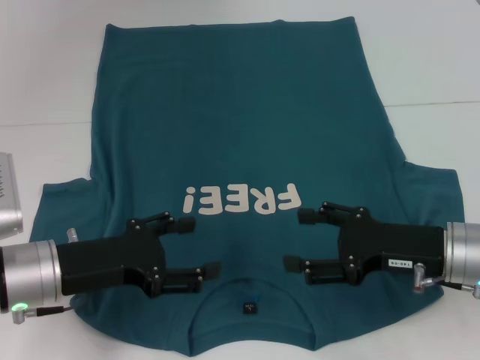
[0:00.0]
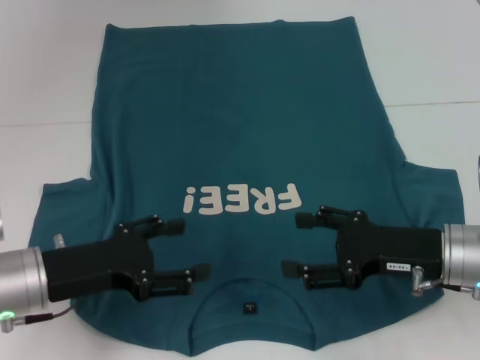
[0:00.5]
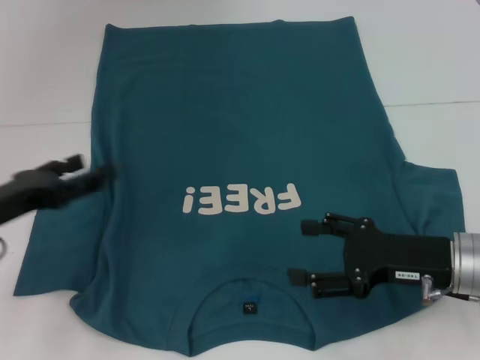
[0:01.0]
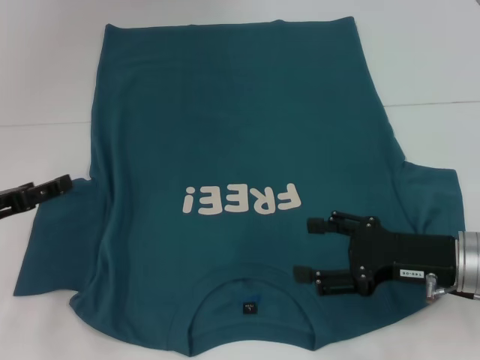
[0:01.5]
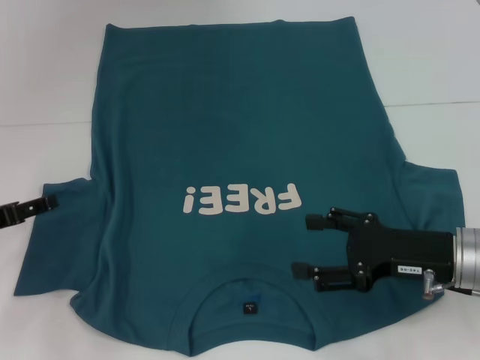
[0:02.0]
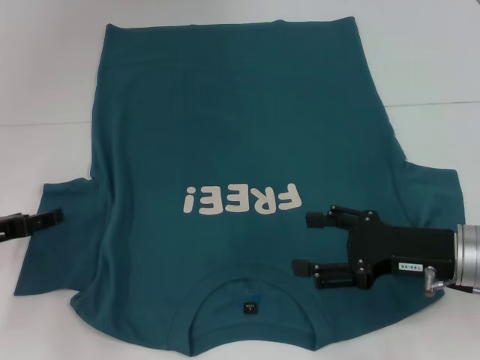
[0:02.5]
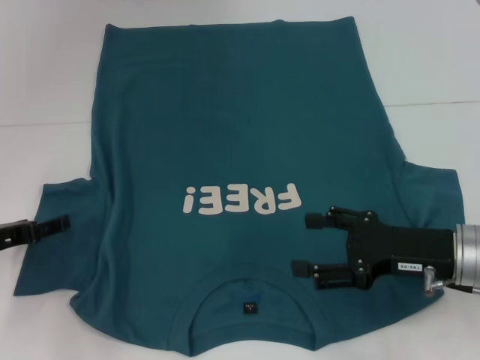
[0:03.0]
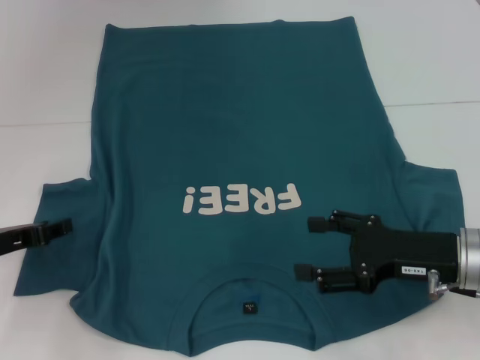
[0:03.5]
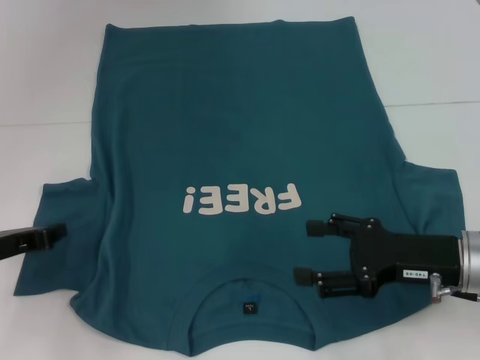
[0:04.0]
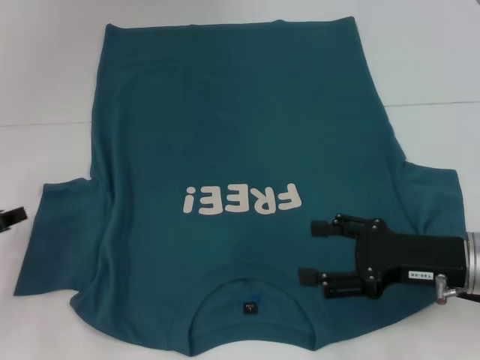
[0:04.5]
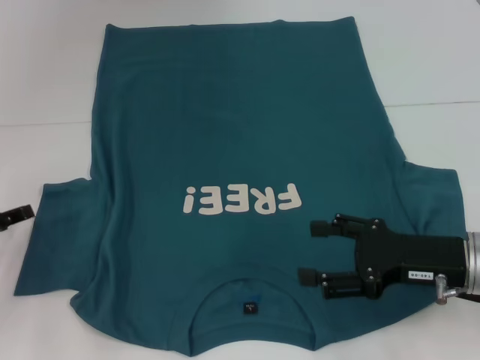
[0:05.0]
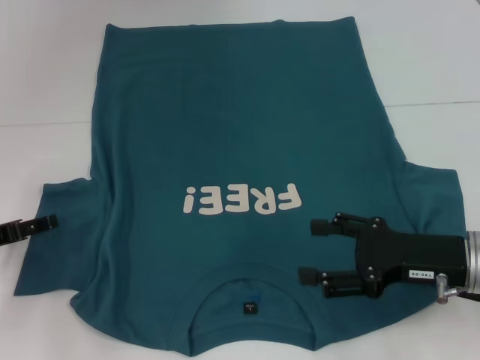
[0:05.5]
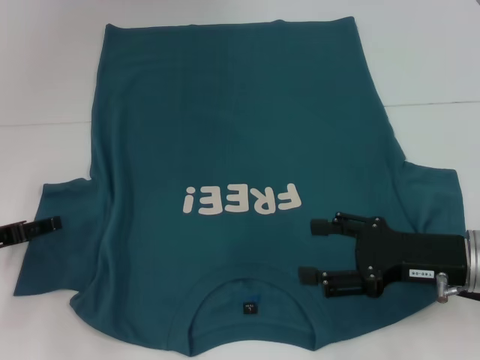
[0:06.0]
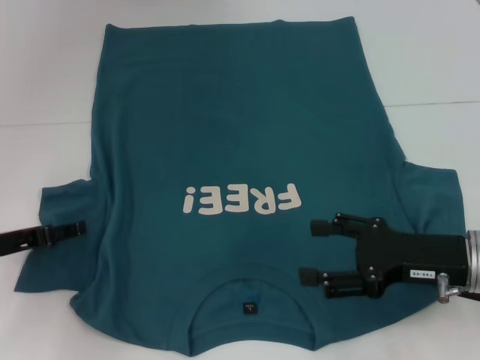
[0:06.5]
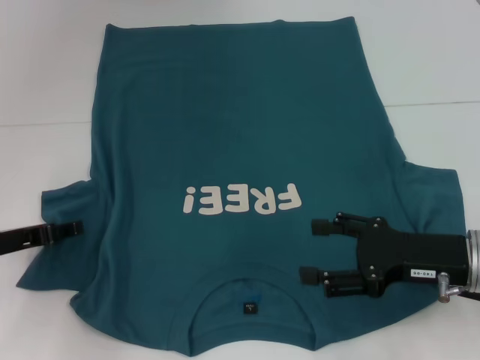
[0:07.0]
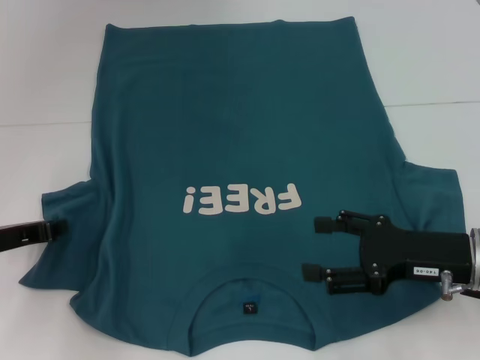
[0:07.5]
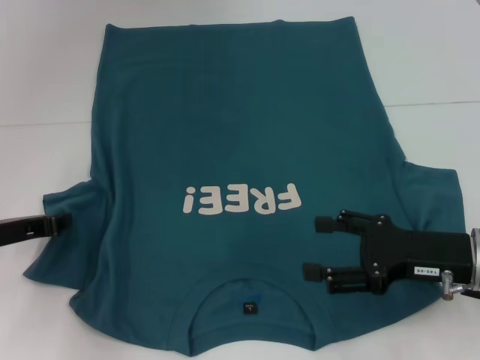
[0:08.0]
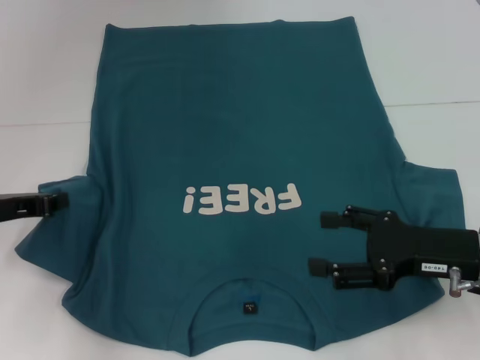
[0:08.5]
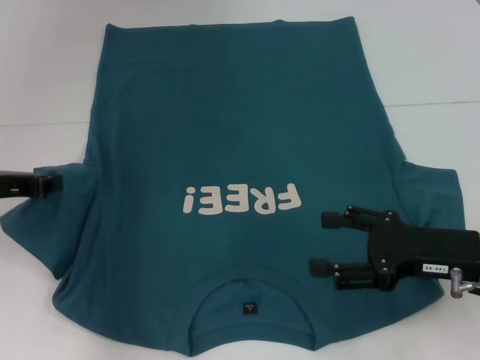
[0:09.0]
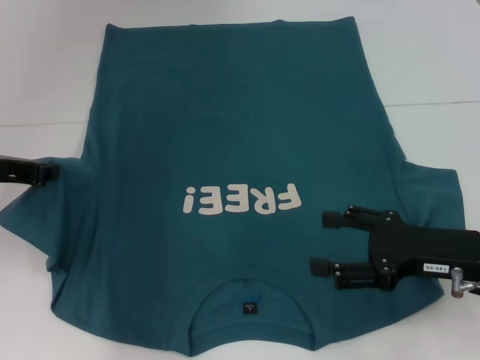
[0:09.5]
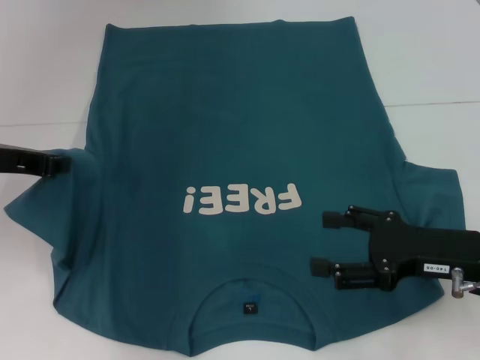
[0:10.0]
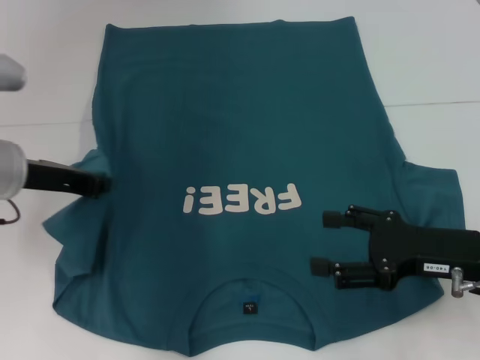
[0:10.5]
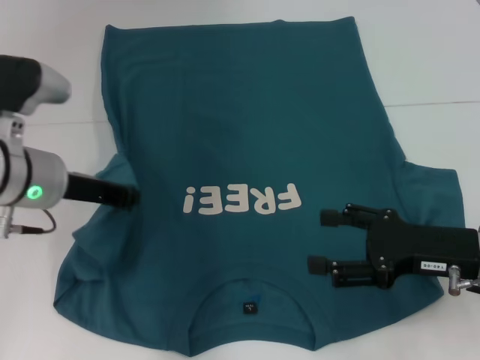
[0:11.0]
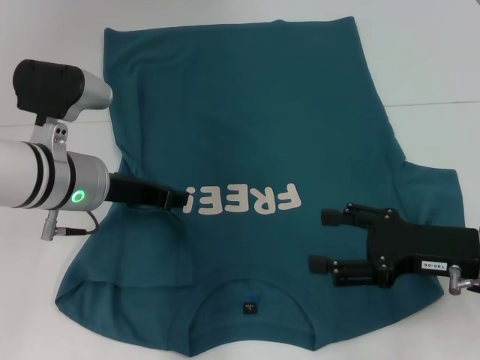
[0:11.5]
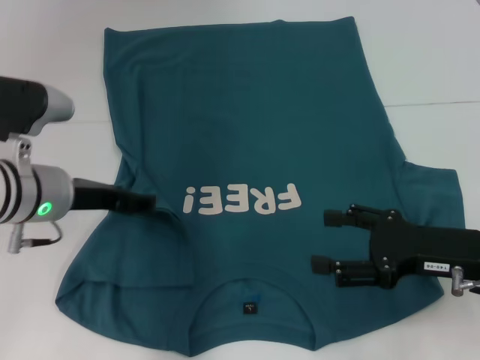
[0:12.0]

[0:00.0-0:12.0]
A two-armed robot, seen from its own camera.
0:00.0 to 0:02.0: The left gripper moves to the left, some 10 cm.
0:02.0 to 0:04.0: The left gripper closes.
0:04.0 to 0:06.0: The left gripper opens its fingers.
0:06.0 to 0:08.0: The left gripper closes.
0:08.0 to 0:10.0: The left gripper shifts some 10 cm upward.
0:10.0 to 0:12.0: The left gripper travels to the right and downward by about 10 cm, and opens up.

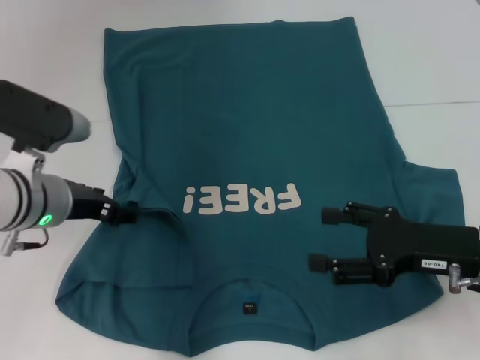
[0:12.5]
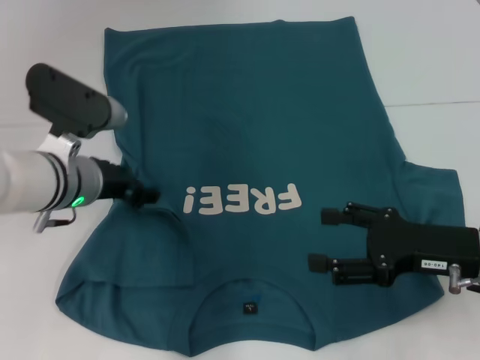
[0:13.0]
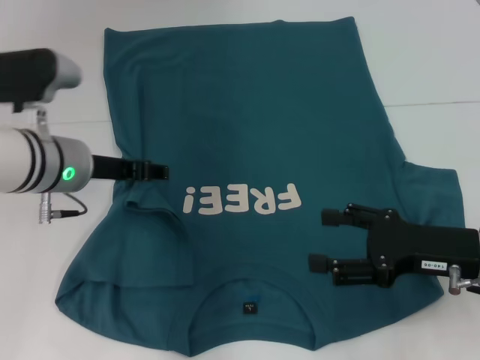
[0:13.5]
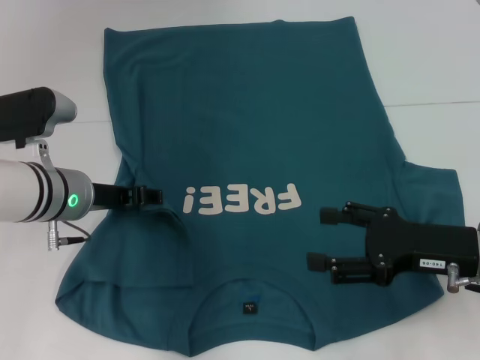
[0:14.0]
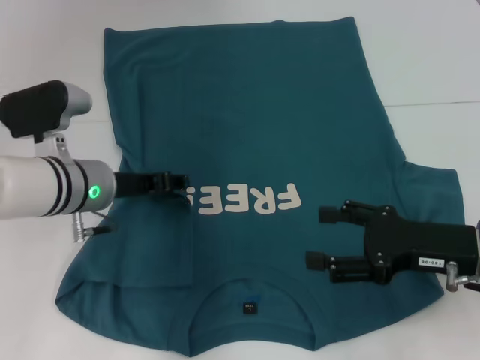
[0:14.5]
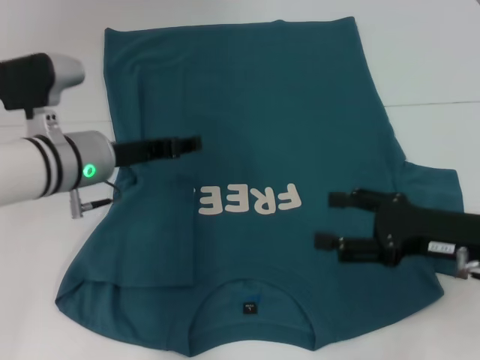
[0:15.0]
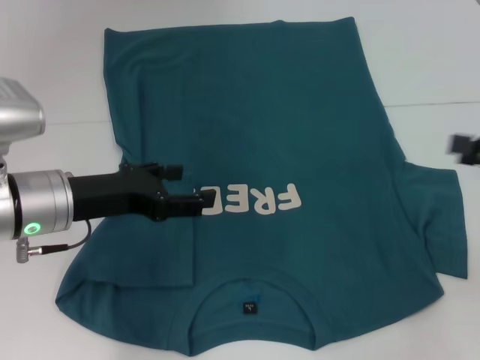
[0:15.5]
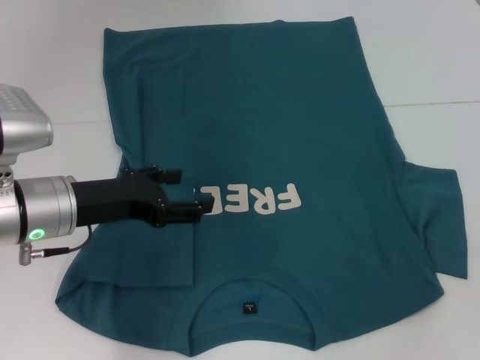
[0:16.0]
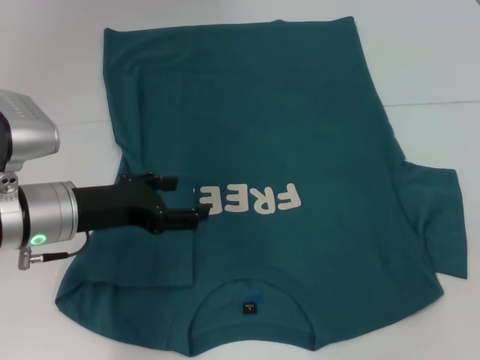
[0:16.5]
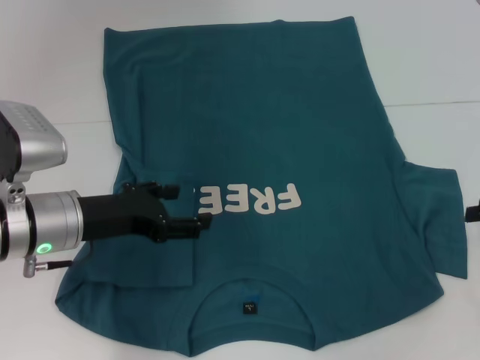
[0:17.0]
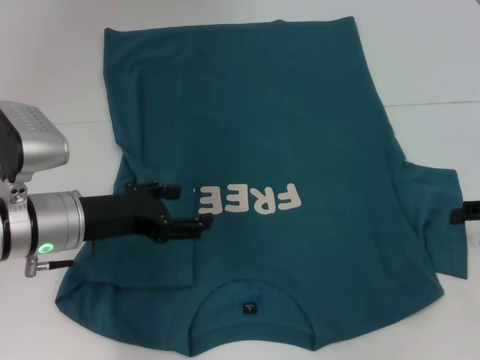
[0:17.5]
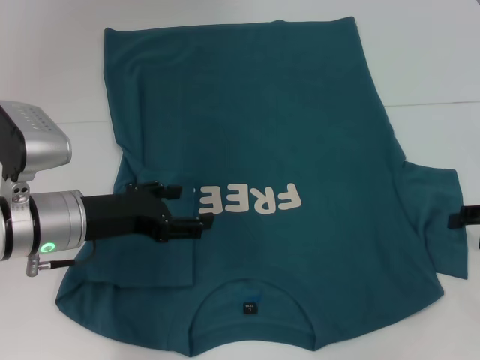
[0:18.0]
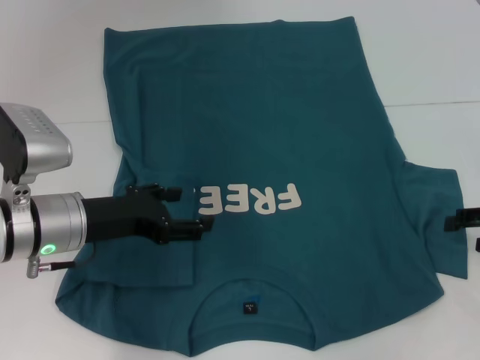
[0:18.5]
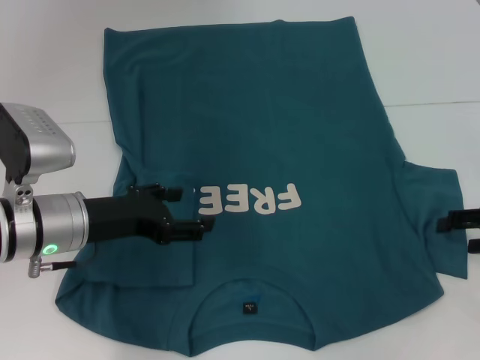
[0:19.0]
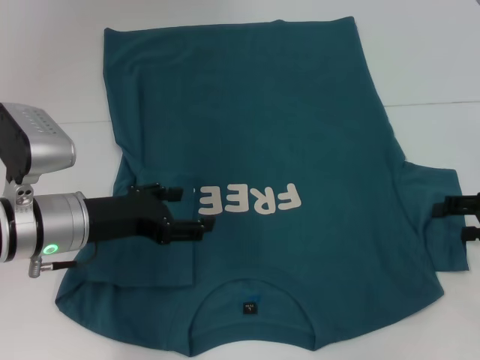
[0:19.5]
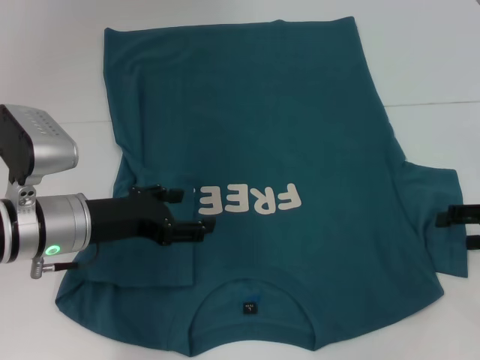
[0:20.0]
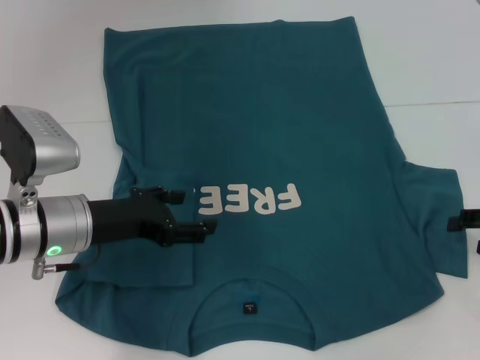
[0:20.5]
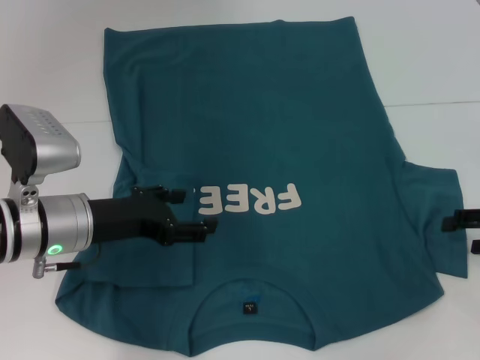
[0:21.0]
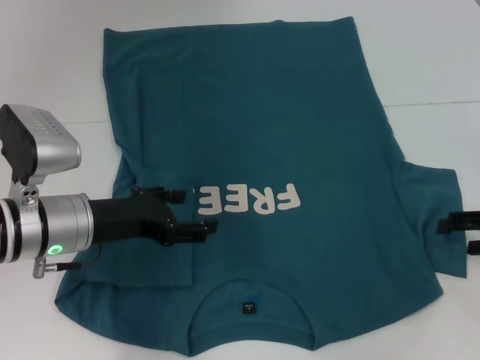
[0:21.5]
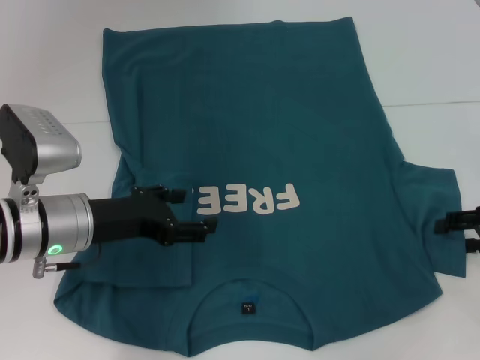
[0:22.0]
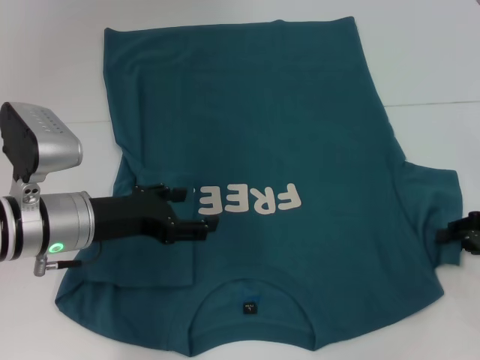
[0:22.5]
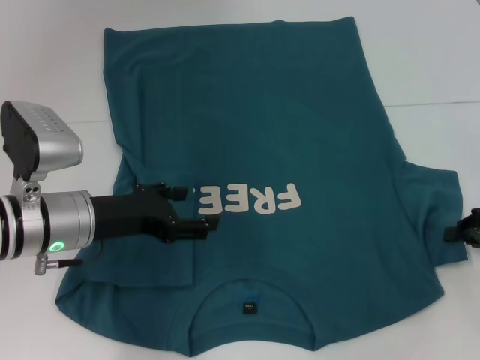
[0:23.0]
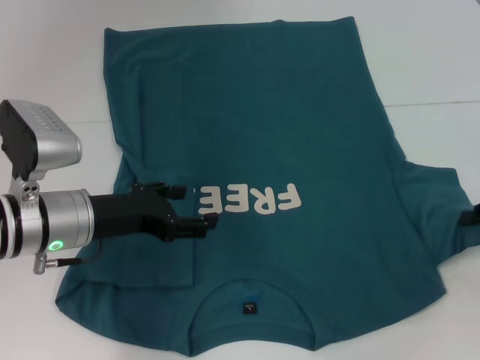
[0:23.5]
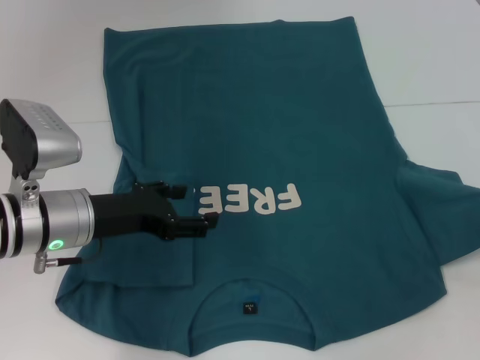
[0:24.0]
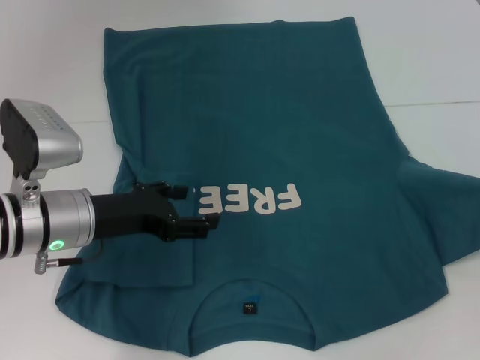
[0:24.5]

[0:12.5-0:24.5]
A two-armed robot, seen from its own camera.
Step, 0:12.5 to 0:15.0: Fold the bottom left sleeve with your left hand.
0:14.5 to 0:16.5: The right gripper heads to the right, covering some 15 cm, while the left gripper goes some 5 cm backward.
0:16.5 to 0:18.5: The right gripper ends up roughly 5 cm from where it was.
0:18.5 to 0:22.5: The grippers stay close to where they were, moving slightly.
0:22.5 to 0:24.5: The right gripper is displaced upward and to the right by roughly 10 cm, and closes its fingers.

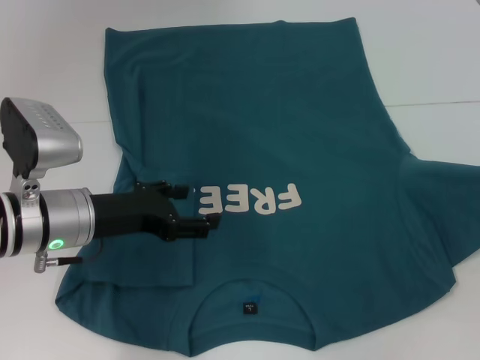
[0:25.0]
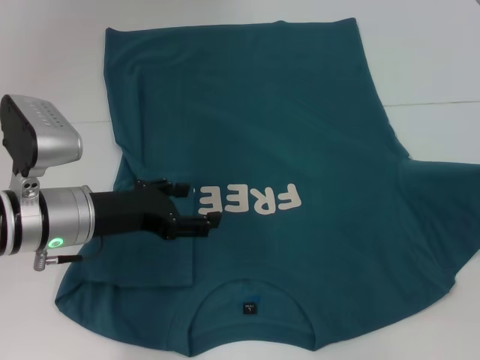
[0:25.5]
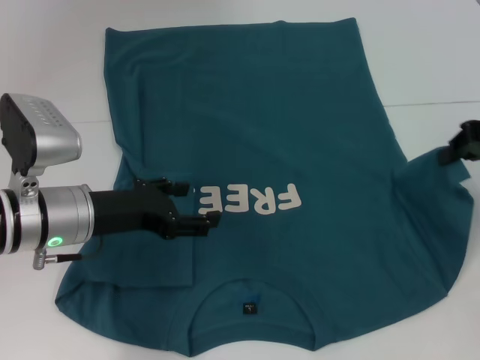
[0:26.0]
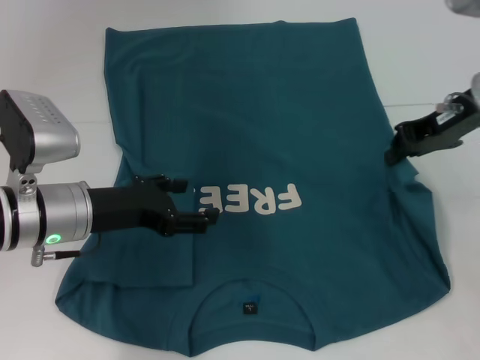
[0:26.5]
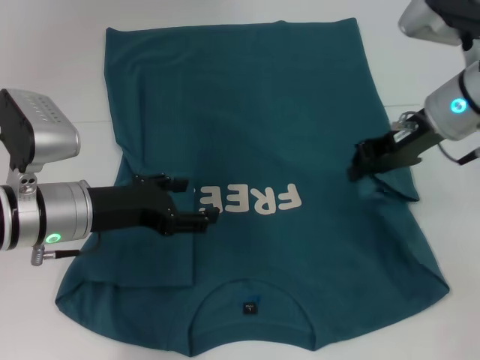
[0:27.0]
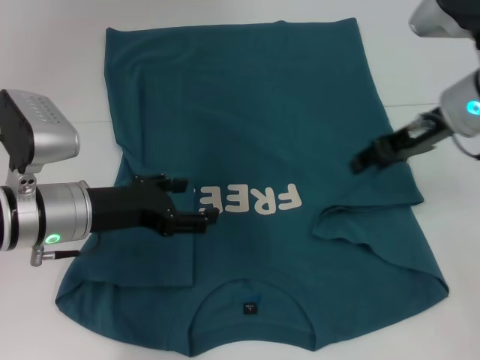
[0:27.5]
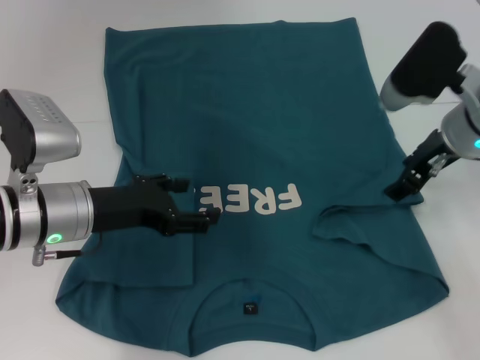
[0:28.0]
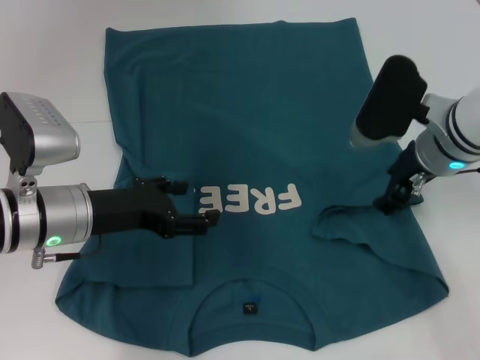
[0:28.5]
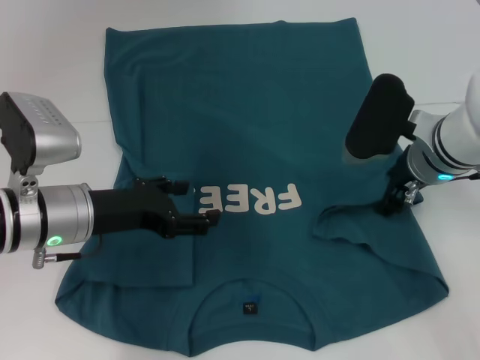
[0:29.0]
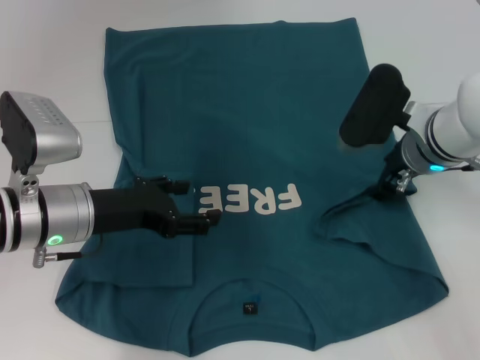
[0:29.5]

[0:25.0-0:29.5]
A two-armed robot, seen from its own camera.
0:25.0 to 0:27.0: The right gripper travels to the left and forward by roughly 20 cm.
0:27.0 to 0:29.5: The right gripper moves downward, roughly 5 cm, and opens its fingers.
